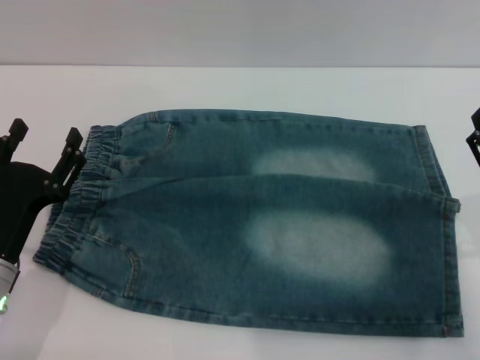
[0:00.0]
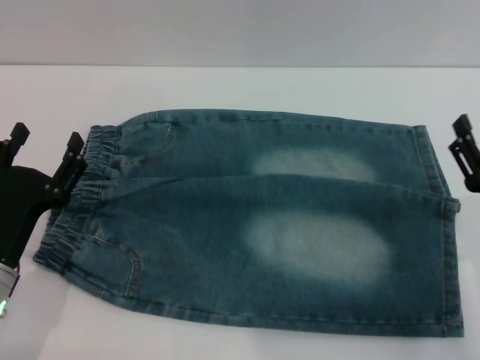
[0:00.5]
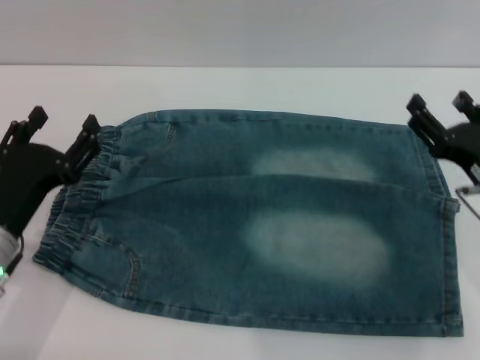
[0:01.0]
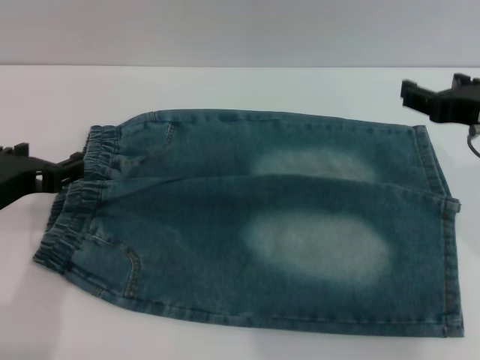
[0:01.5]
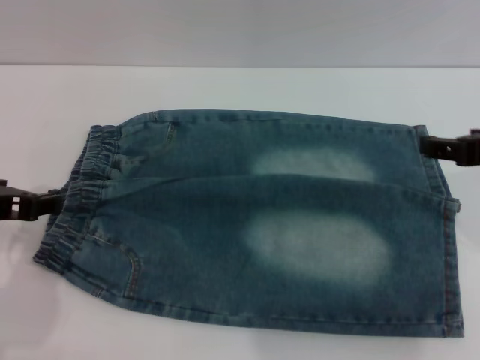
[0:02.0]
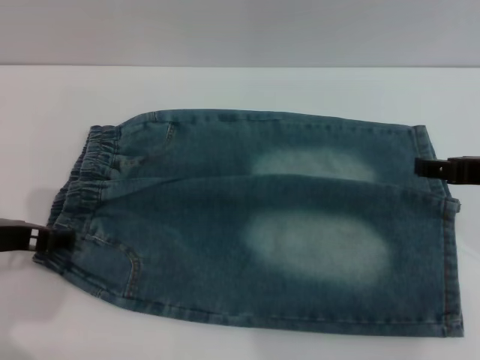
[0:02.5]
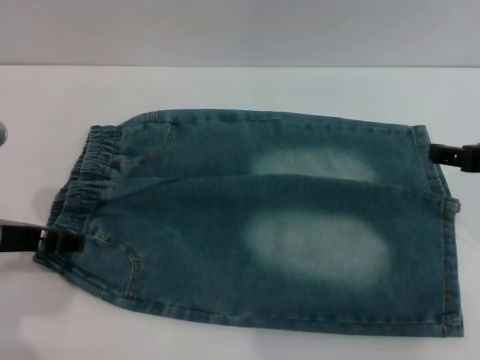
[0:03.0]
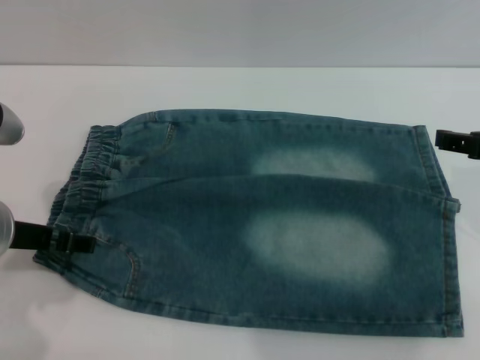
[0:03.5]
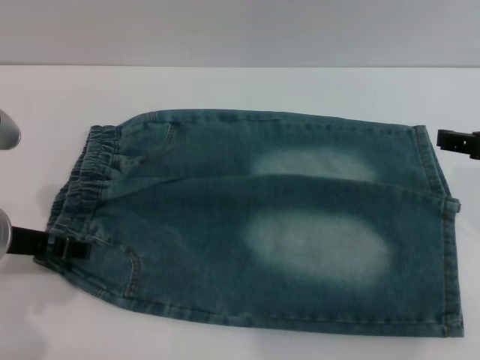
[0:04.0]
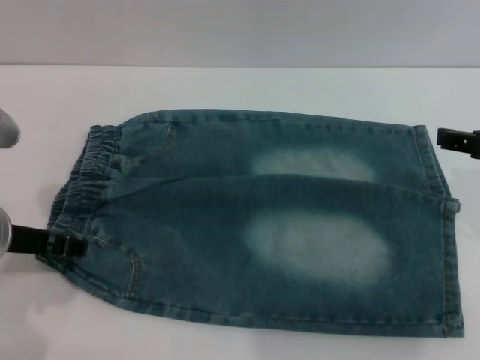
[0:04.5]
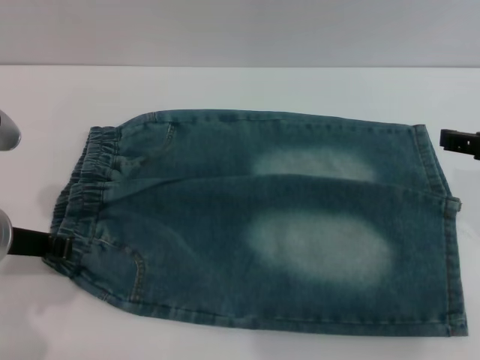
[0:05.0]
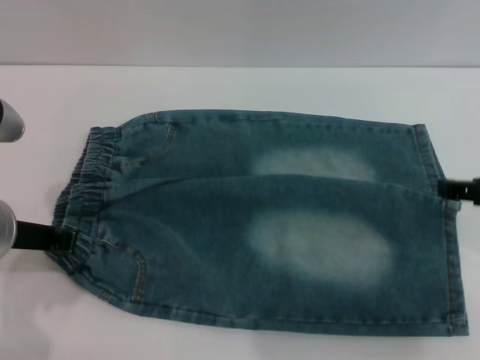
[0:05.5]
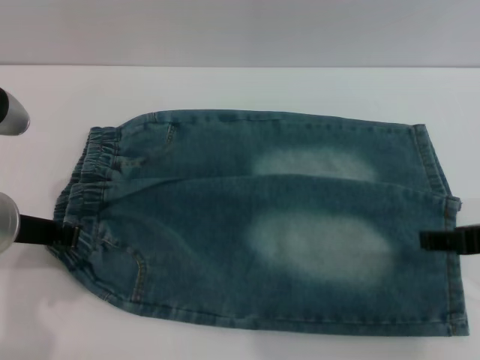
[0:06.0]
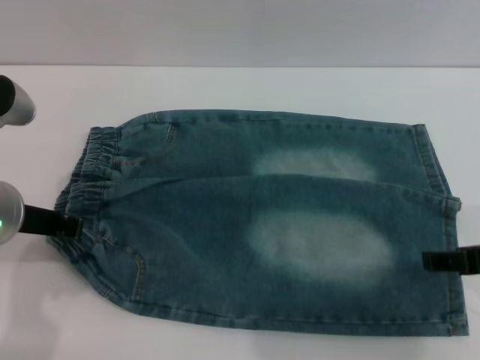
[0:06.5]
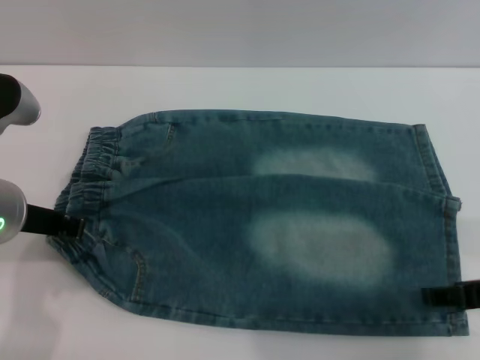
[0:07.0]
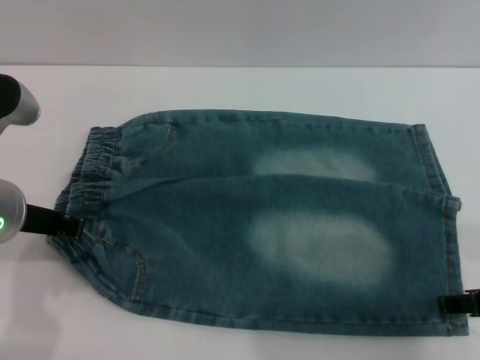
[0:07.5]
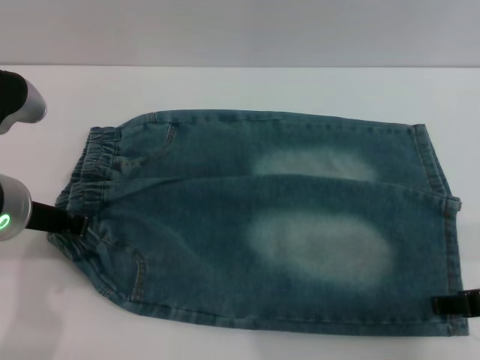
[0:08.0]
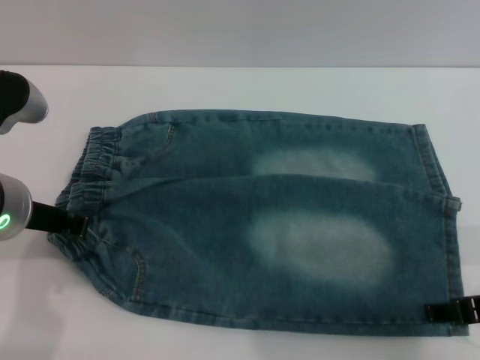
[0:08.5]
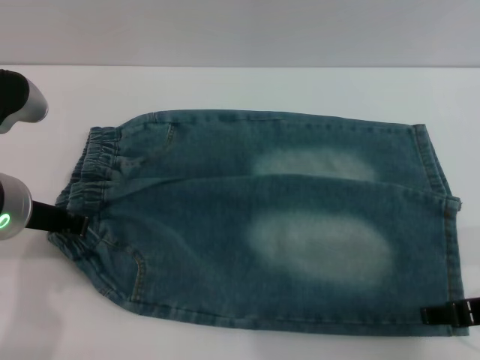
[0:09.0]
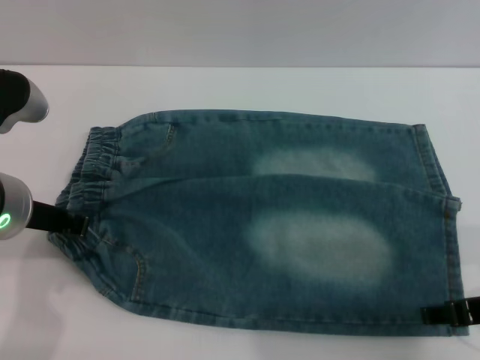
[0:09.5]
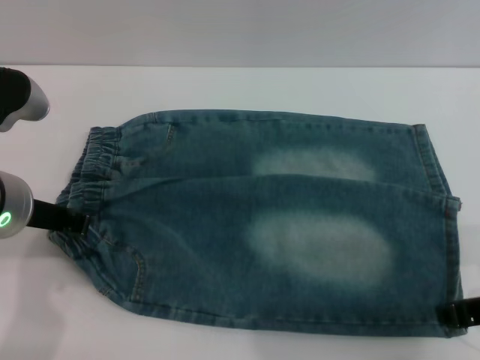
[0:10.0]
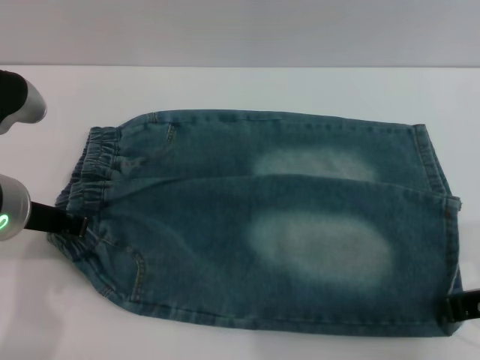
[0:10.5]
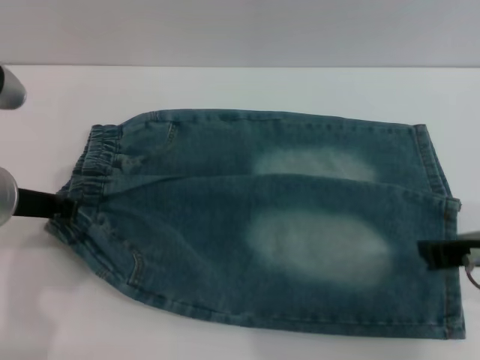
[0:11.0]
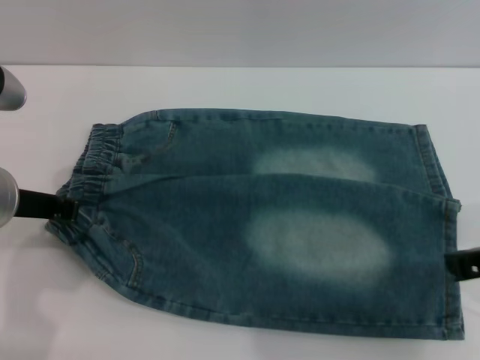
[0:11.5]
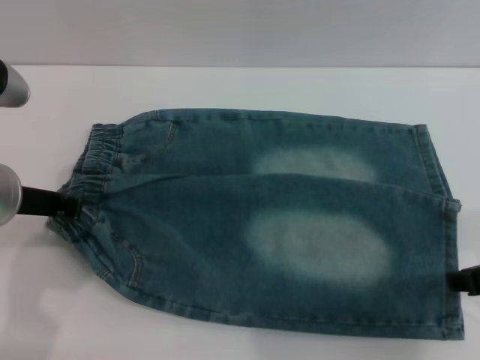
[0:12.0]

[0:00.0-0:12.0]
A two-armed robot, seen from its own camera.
0:00.0 to 0:02.0: Both grippers move upward, approximately 15 cm.
0:02.0 to 0:04.0: The grippers move only a little.
0:04.0 to 0:06.0: The left gripper closes its fingers.
0:06.0 to 0:08.0: The grippers stay close to where they were, moving slightly.
0:08.0 to 0:10.0: Both grippers stay put.
0:10.0 to 0:12.0: The right gripper closes, then reopens.

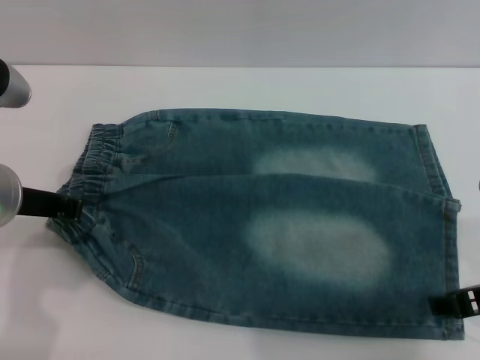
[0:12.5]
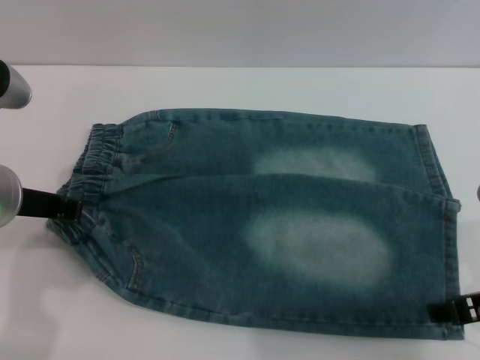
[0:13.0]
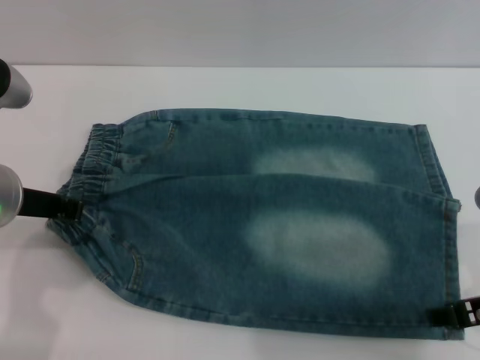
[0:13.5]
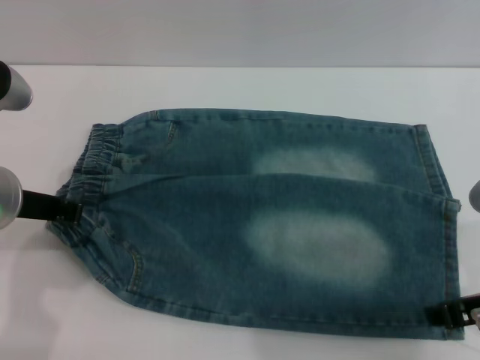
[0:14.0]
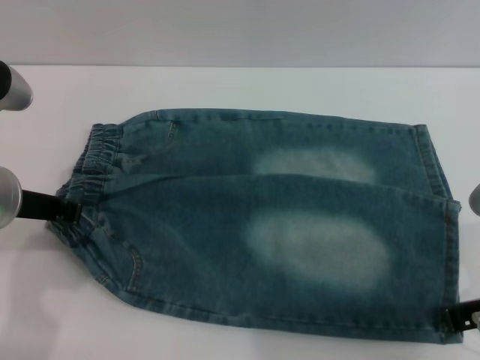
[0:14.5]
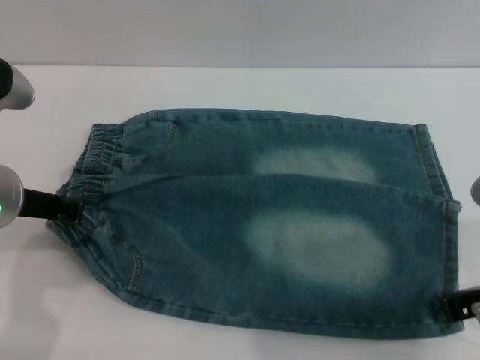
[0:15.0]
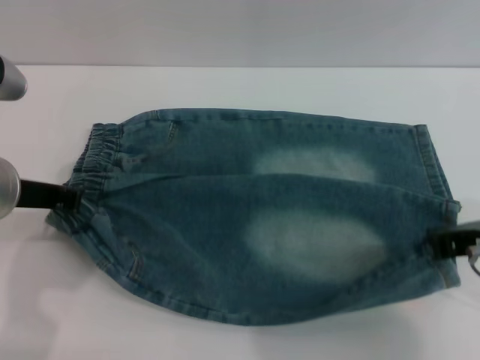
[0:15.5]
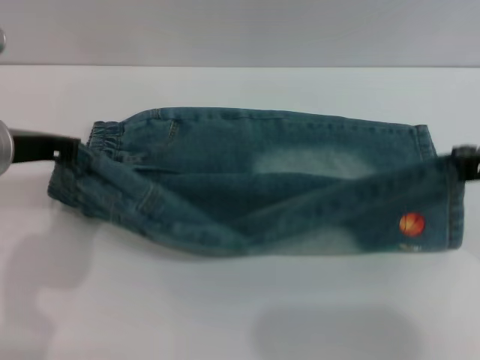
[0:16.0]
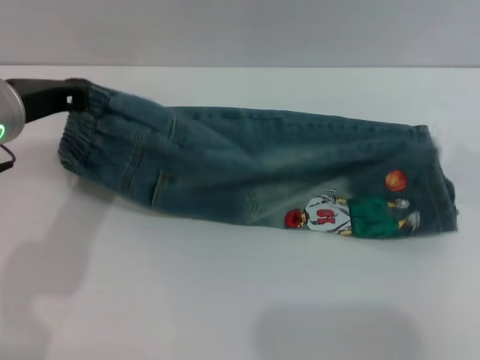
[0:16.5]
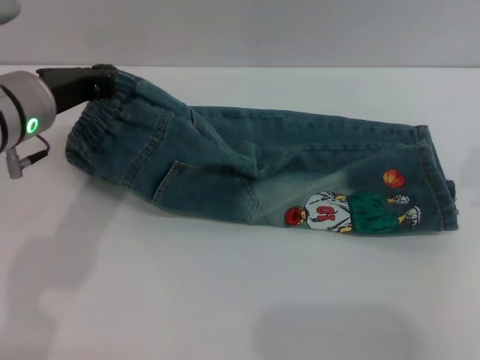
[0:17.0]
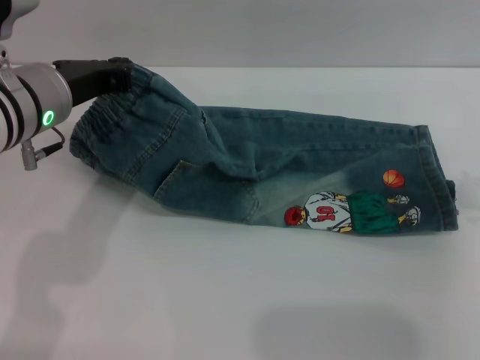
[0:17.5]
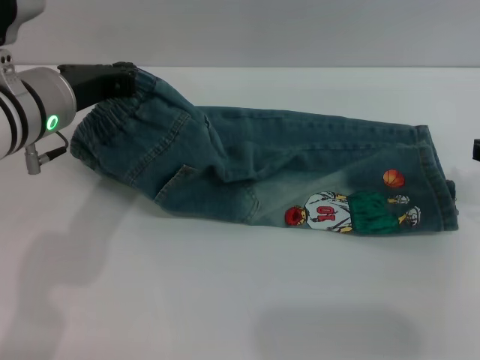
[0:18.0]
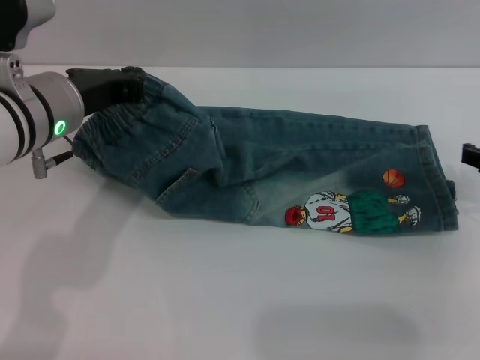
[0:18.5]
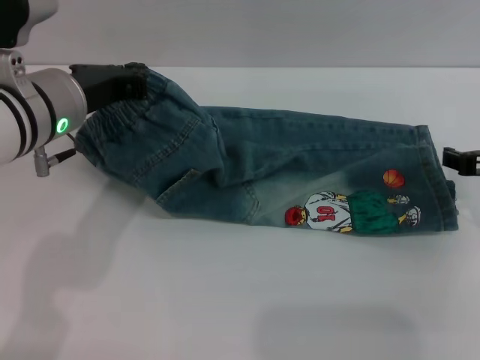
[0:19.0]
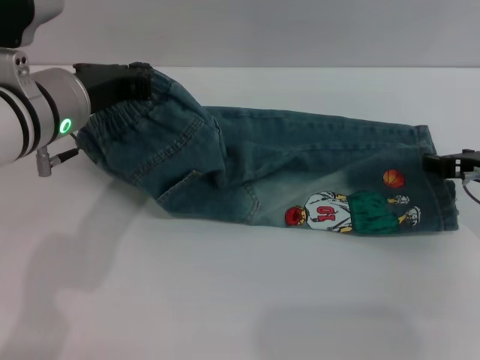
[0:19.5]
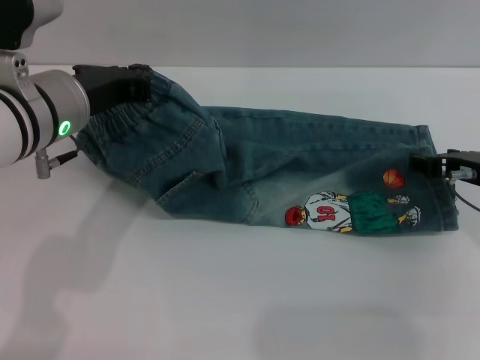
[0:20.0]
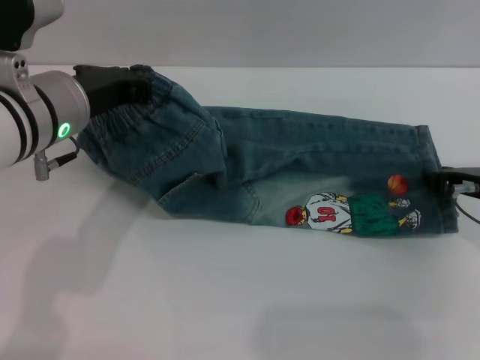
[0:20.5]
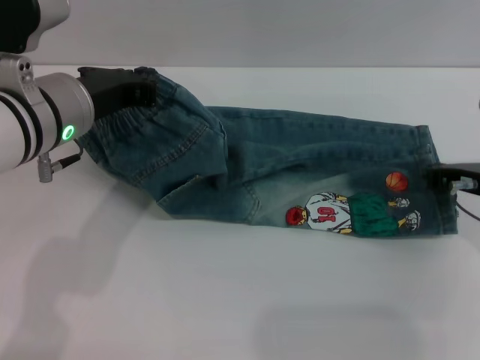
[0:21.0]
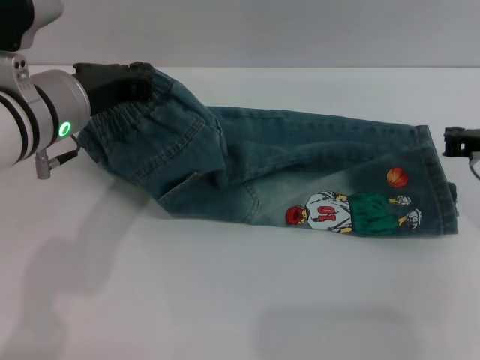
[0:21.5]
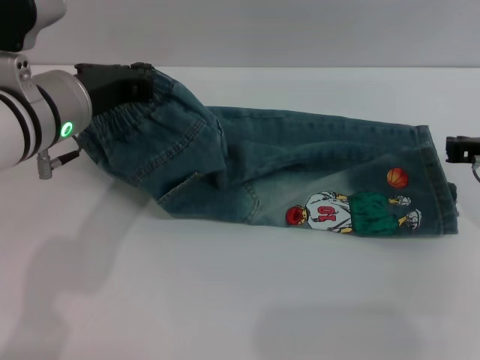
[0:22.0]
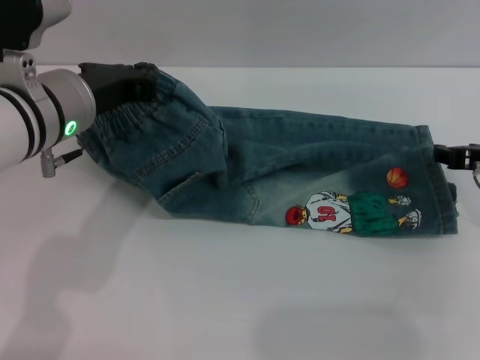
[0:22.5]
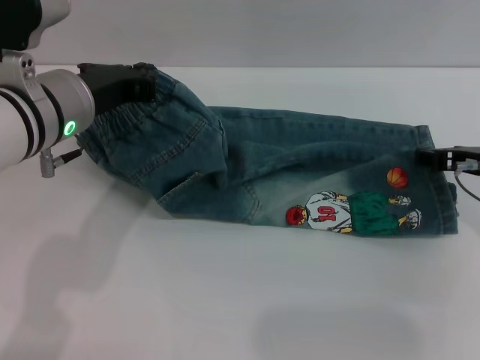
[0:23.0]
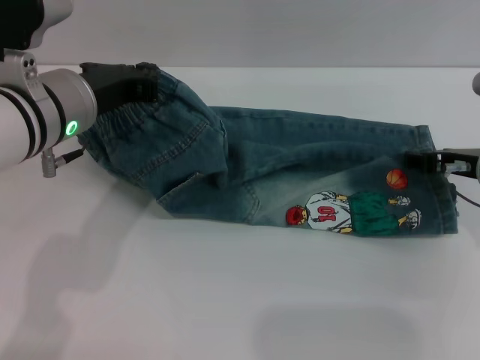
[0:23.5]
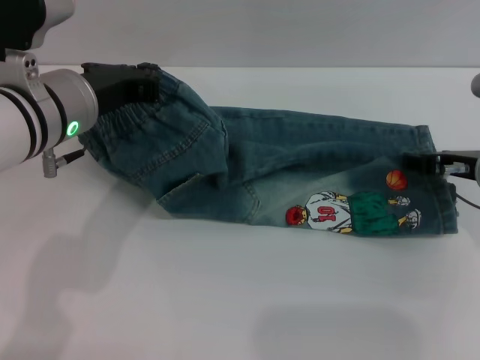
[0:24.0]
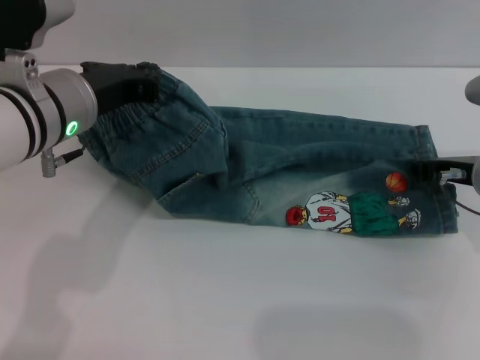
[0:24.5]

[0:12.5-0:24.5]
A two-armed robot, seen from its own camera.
0:12.5 to 0:14.5: The right gripper closes its fingers.
0:14.5 to 0:16.5: The right gripper moves upward and forward, about 10 cm.
0:16.5 to 0:18.5: The right gripper heads downward, covering approximately 5 cm, and opens up.
0:18.5 to 0:20.5: The right gripper ends up approximately 5 cm from where it was.
0:20.5 to 0:22.5: The right gripper closes and opens again.
0:22.5 to 0:24.5: The grippers stay close to where they were, moving slightly.

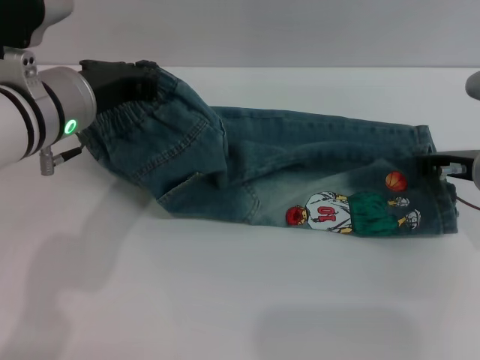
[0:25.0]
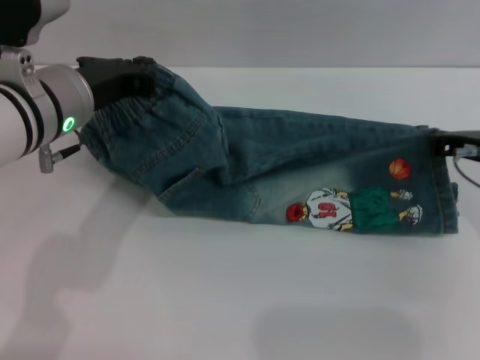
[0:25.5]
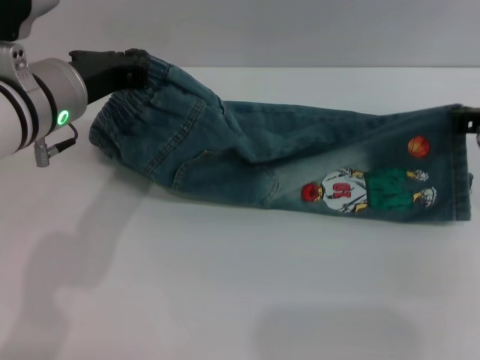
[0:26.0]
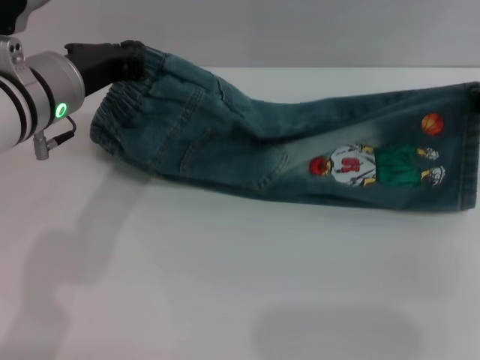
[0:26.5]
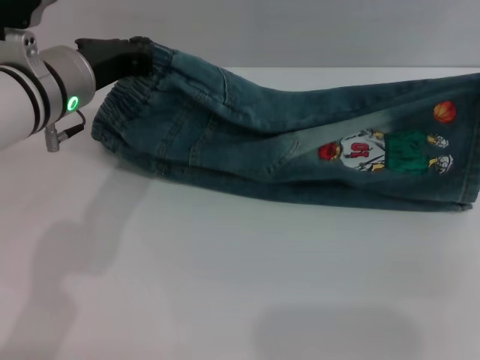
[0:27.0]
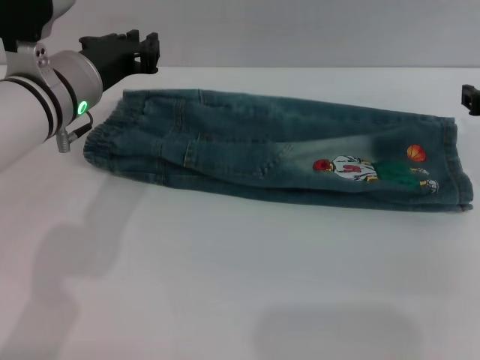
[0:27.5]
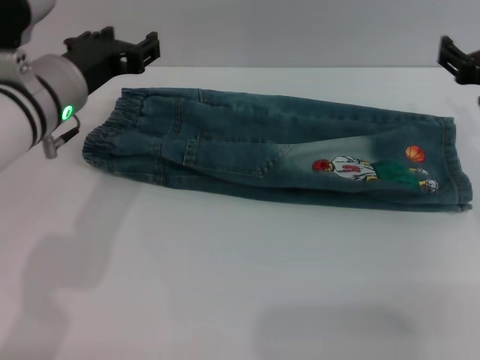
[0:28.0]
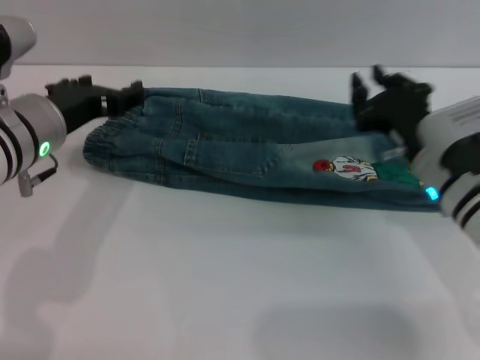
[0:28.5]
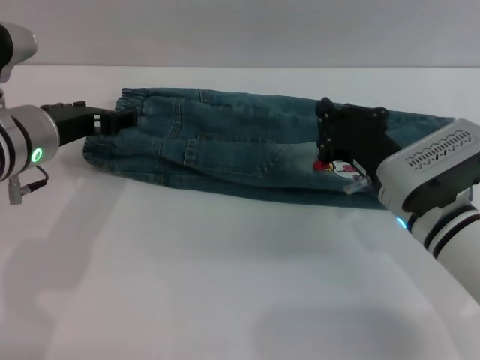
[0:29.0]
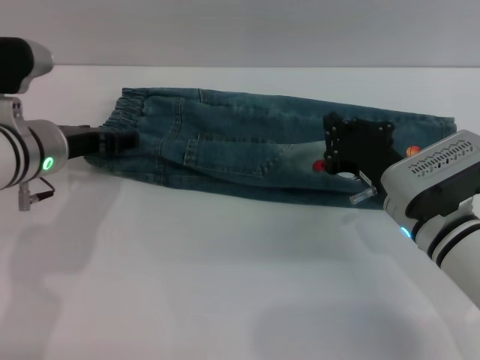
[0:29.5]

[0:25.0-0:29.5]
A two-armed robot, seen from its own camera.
Step, 0:25.0 to 0:27.5: Fold the bottom of the pants upward with both grippers.
0:25.0 to 0:27.0: The right gripper moves upward, some 5 cm.
0:27.0 to 0:29.5: The left gripper shifts approximately 5 cm downward, and opens, while the right gripper travels to the left and downward by about 15 cm, and opens, then closes again.
